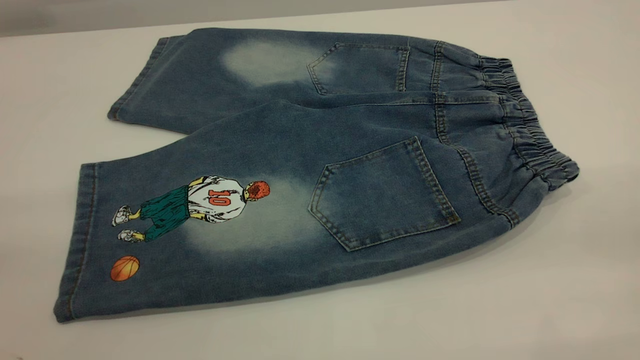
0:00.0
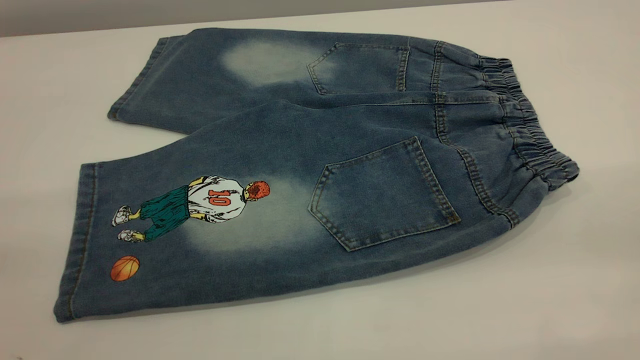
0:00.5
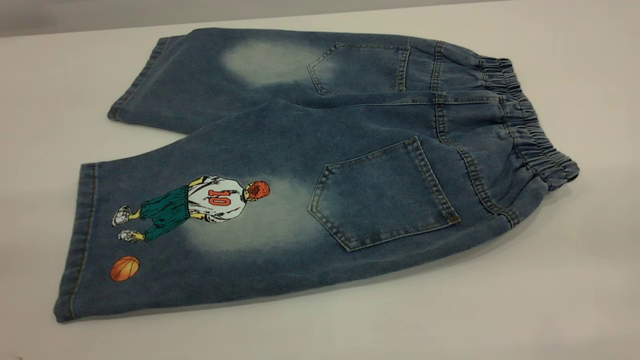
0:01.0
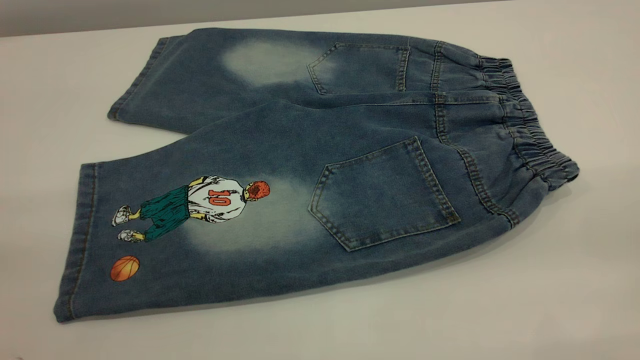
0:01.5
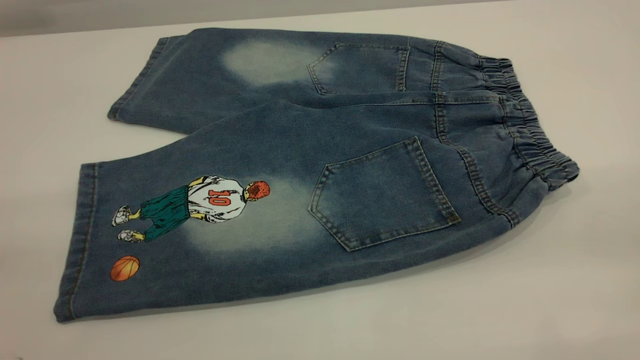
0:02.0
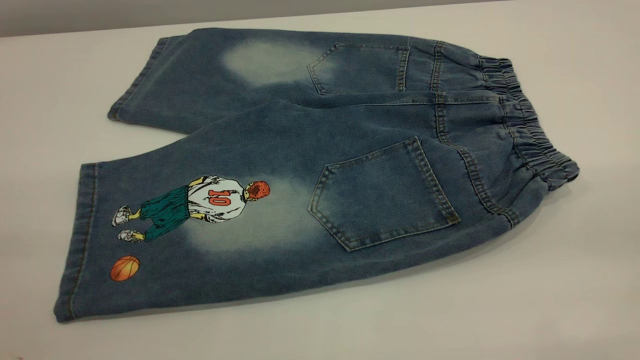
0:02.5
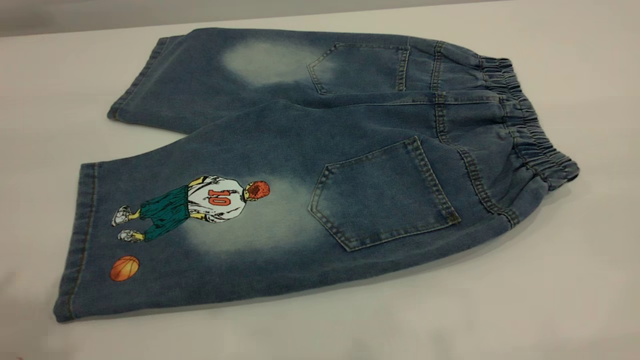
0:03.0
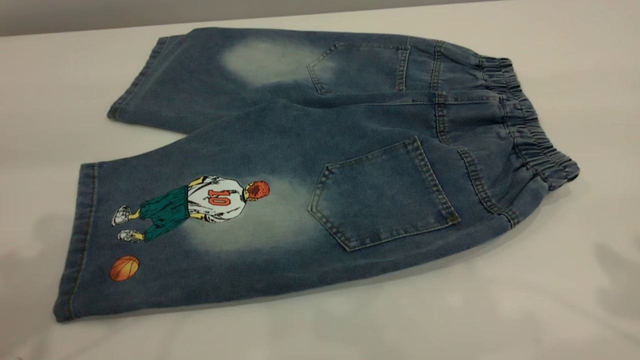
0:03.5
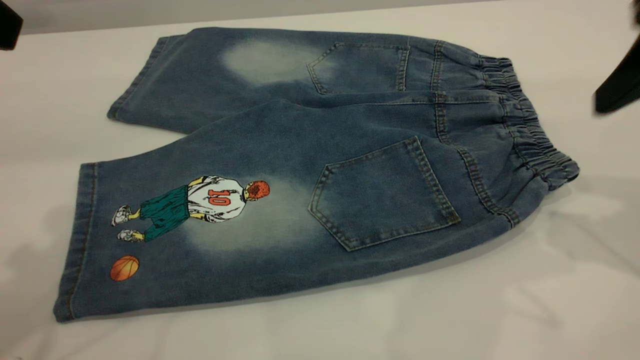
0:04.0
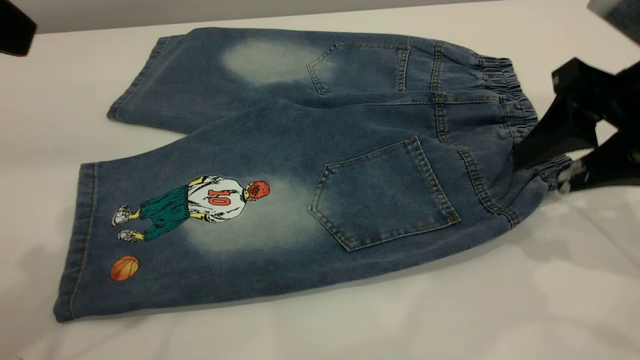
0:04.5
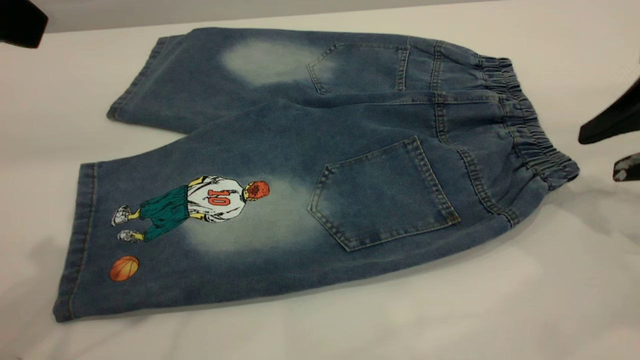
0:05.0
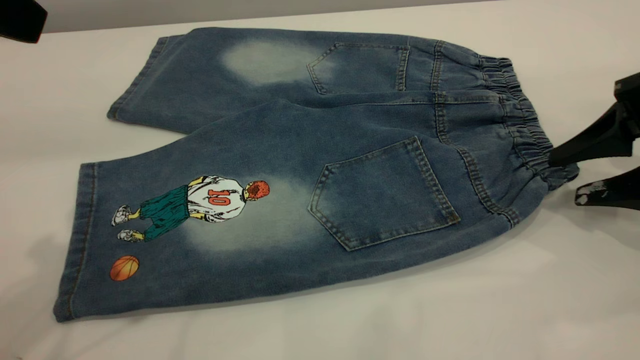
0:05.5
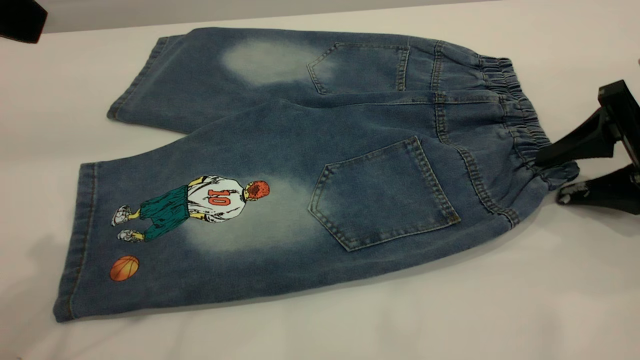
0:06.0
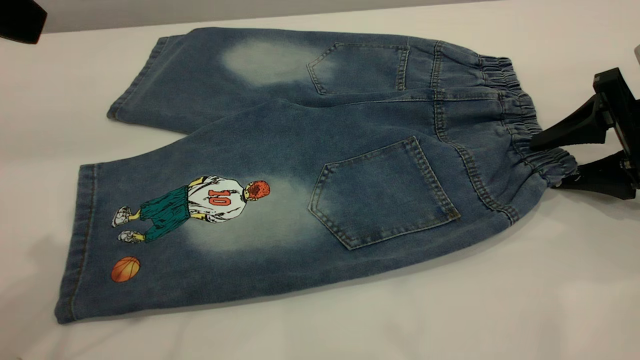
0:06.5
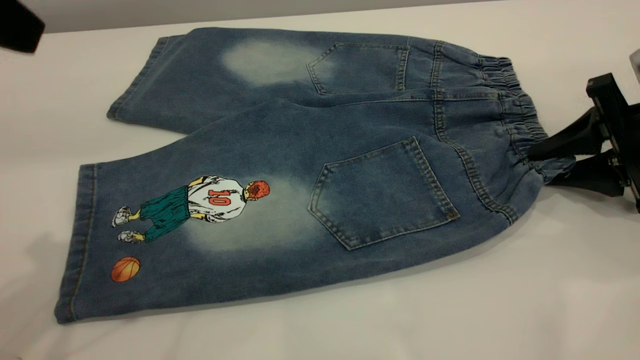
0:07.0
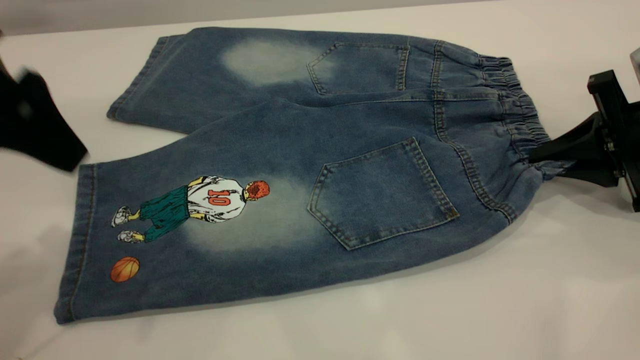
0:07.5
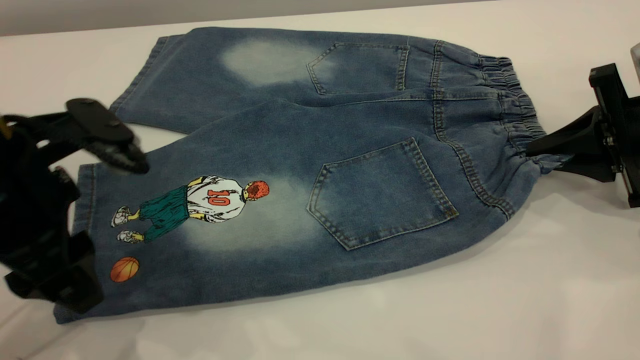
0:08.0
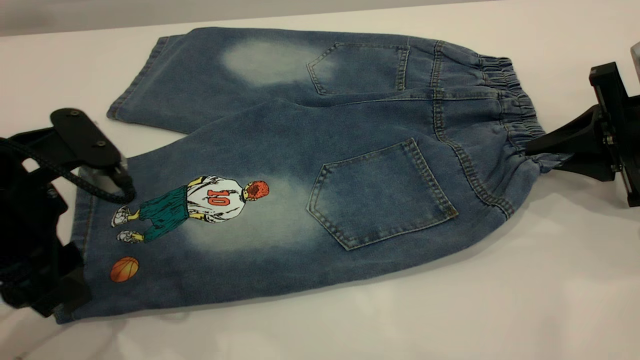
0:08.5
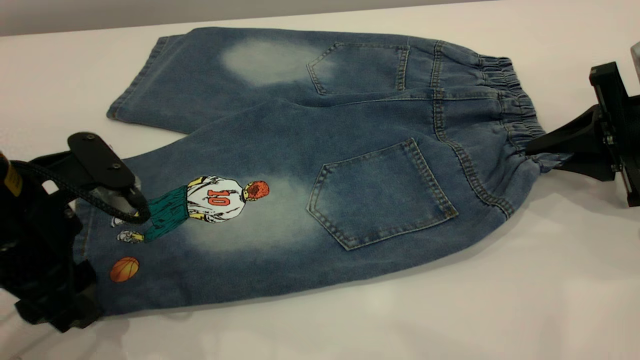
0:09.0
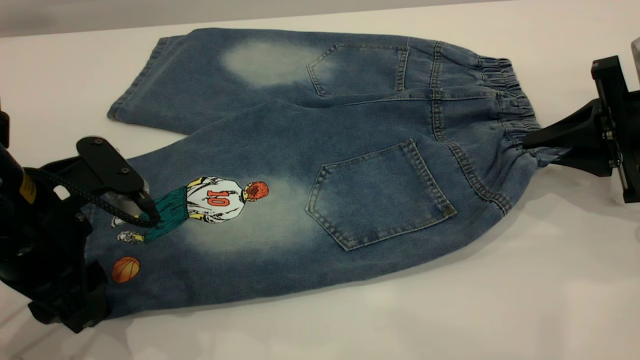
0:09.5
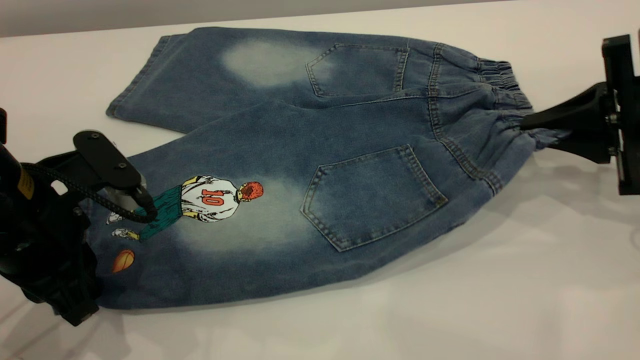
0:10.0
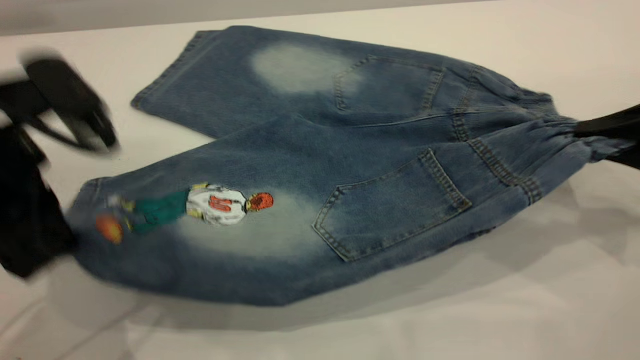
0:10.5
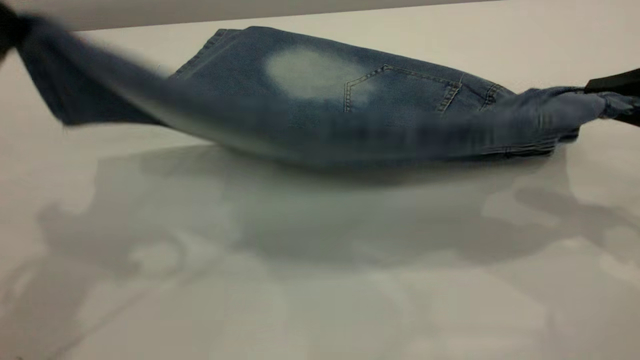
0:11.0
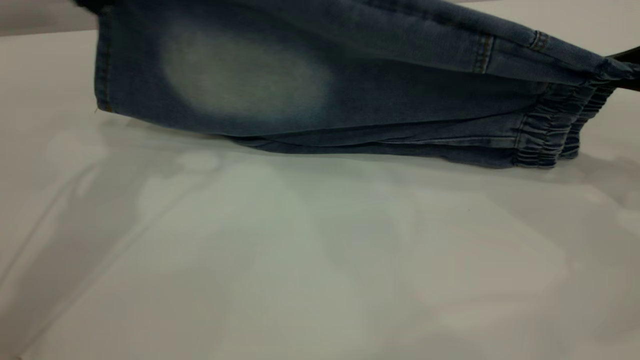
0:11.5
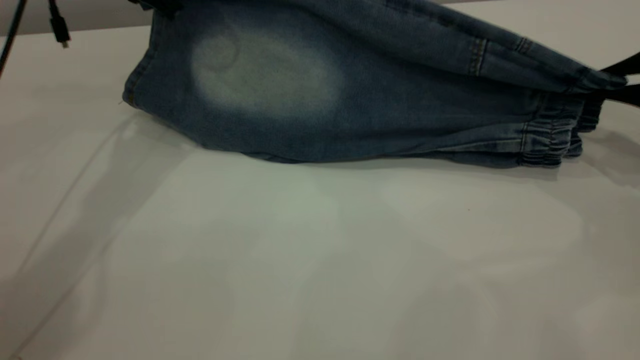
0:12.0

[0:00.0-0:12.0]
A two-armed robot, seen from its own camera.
0:00.0 to 0:02.0: Both grippers stay put.
0:02.0 to 0:04.0: The right gripper travels forward and downward by roughly 25 cm.
0:04.0 to 0:06.0: The right gripper moves downward, roughly 15 cm.
0:06.0 to 0:08.0: The right gripper closes, while the left gripper is displaced downward by some 15 cm.
0:08.0 to 0:10.0: The left gripper shifts some 5 cm downward, and closes up.
0:10.0 to 0:12.0: The right gripper goes backward and returns, about 5 cm each way. The left gripper travels forward and upward by approximately 25 cm.

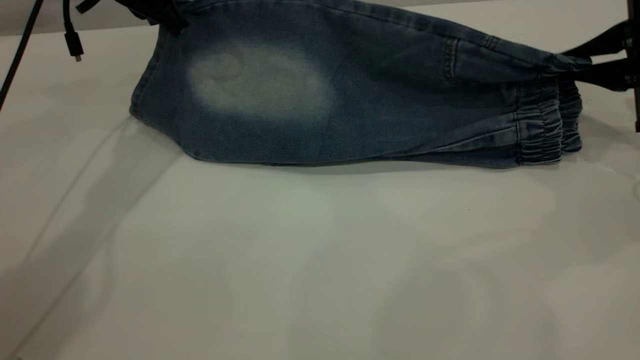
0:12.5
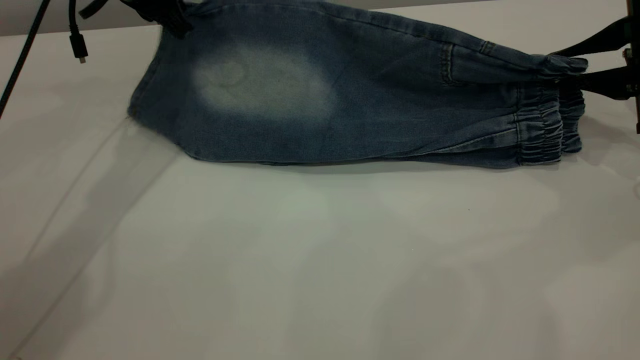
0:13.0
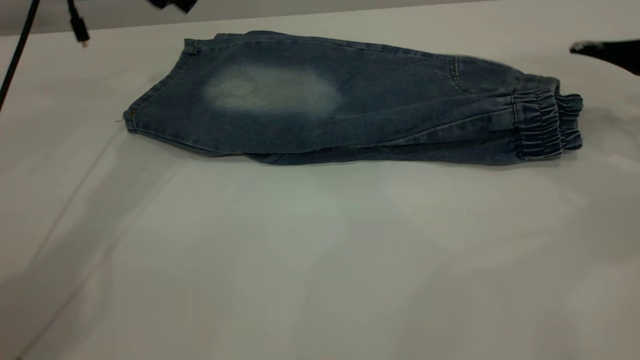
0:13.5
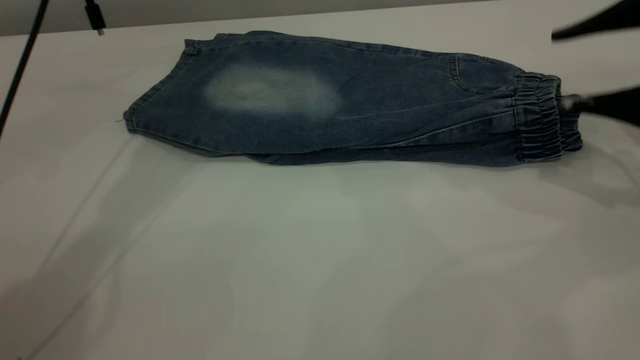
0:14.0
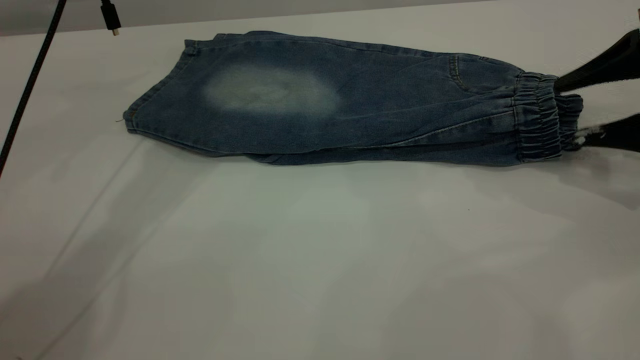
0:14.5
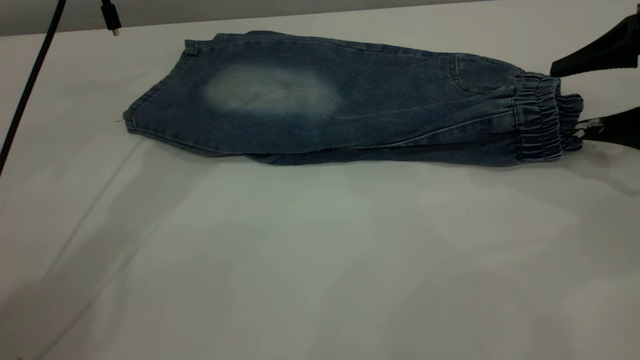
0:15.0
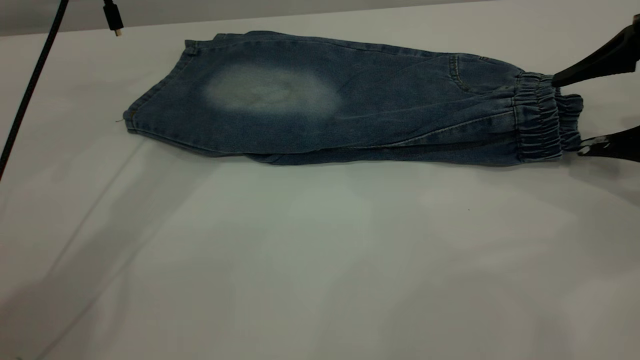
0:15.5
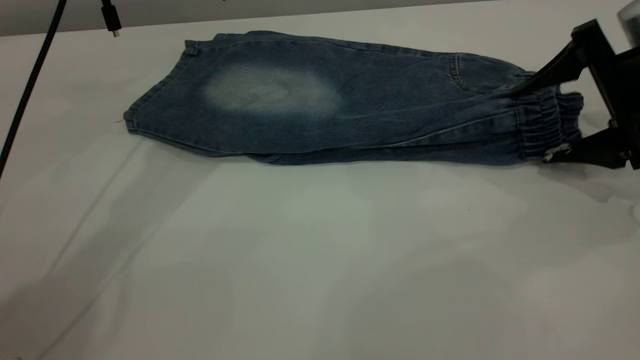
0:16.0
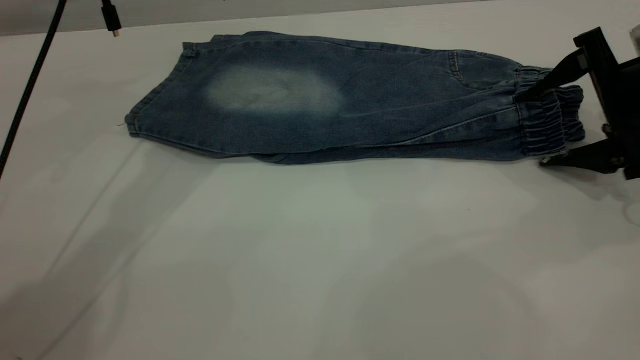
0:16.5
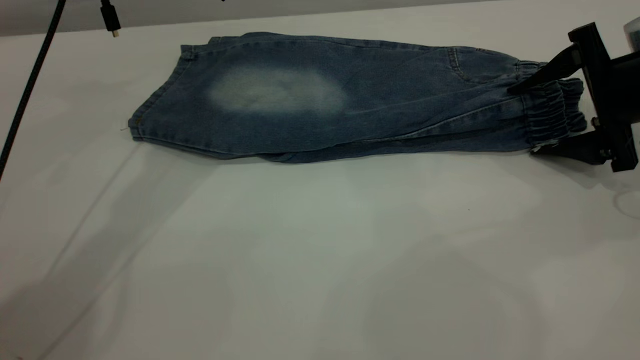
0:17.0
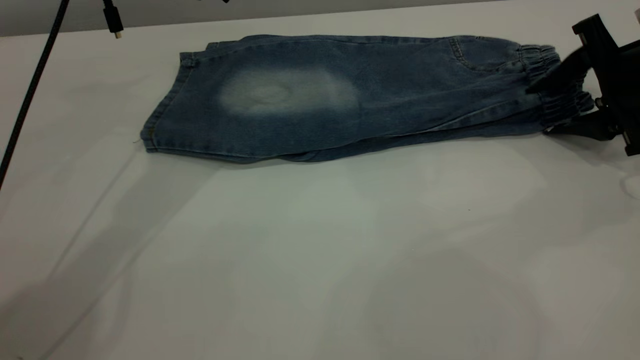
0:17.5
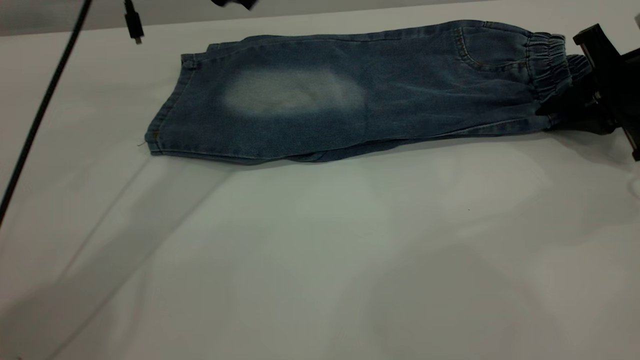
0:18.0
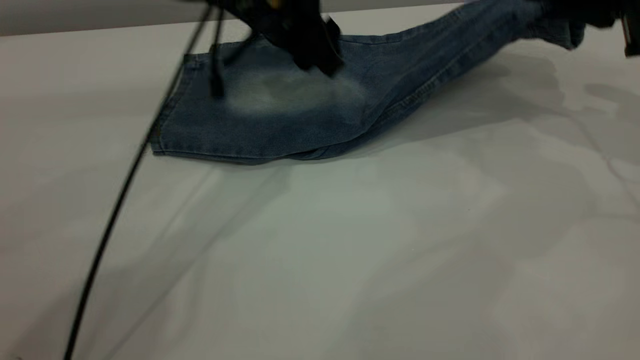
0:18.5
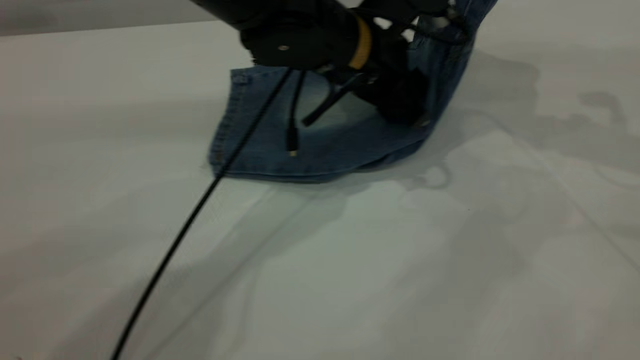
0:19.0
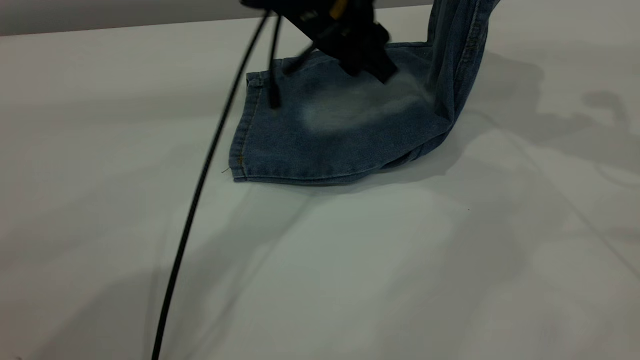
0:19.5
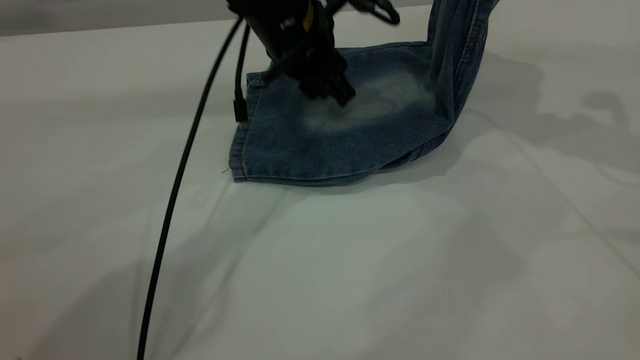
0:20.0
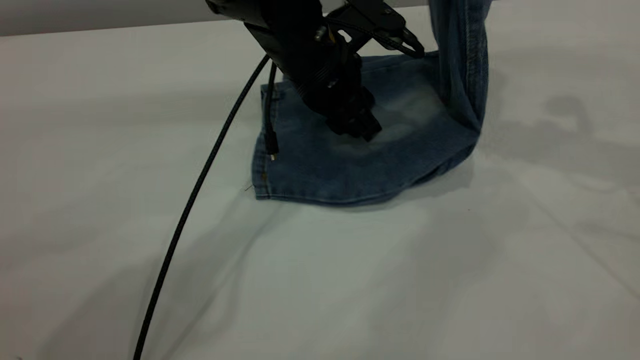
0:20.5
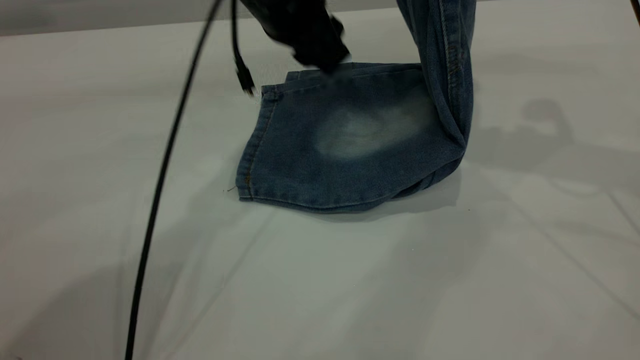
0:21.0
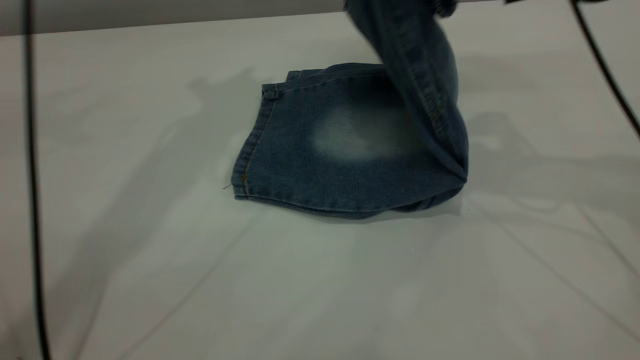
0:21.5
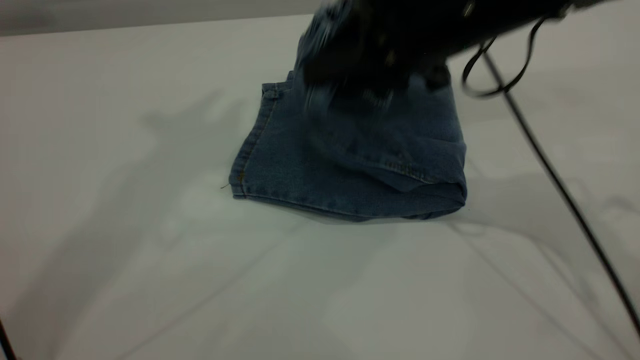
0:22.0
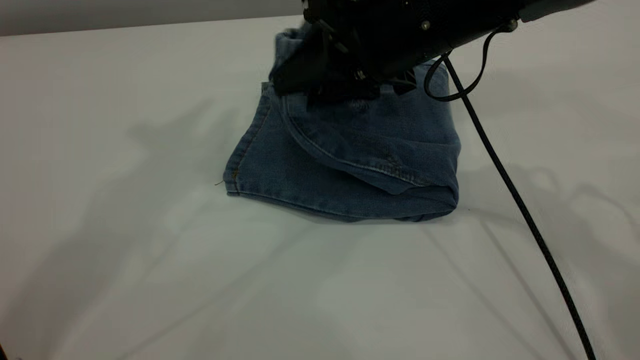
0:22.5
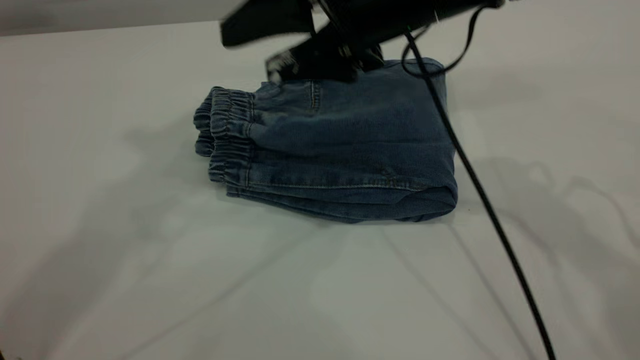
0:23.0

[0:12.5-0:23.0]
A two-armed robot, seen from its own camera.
Step, 0:14.0 to 0:23.0: Fold your pants from right to left.
0:12.5 to 0:14.5: The right gripper opens. The left gripper ends up some 5 cm from where it was, and opens its fingers.
0:14.5 to 0:16.5: The right gripper shifts by about 5 cm.
0:16.5 to 0:19.0: The left gripper moves to the right, downward and backward, about 20 cm. Meanwhile the right gripper is displaced upward by roughly 15 cm, and closes.
0:19.0 to 0:21.0: The left gripper shifts some 10 cm to the left and upward. The right gripper heads to the left, covering roughly 5 cm.
0:21.0 to 0:23.0: The left gripper travels upward by some 30 cm. The right gripper travels to the left by roughly 15 cm, and opens its fingers.
